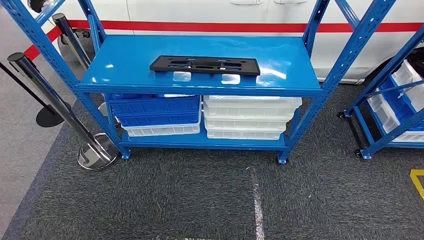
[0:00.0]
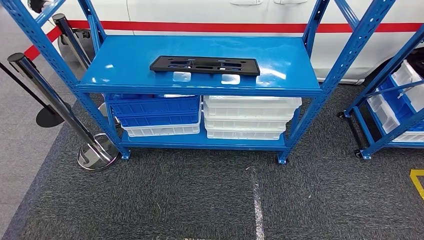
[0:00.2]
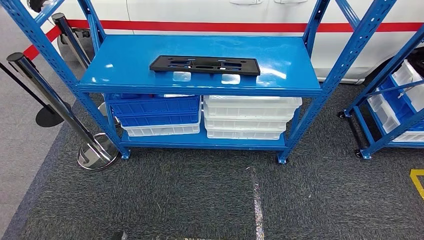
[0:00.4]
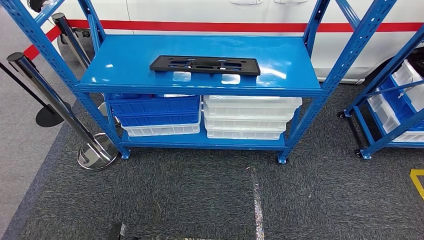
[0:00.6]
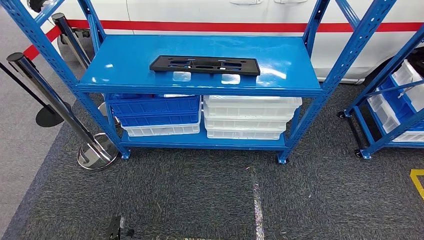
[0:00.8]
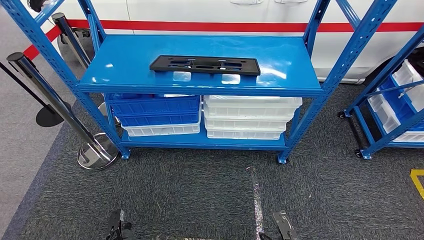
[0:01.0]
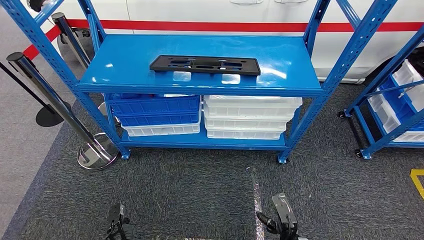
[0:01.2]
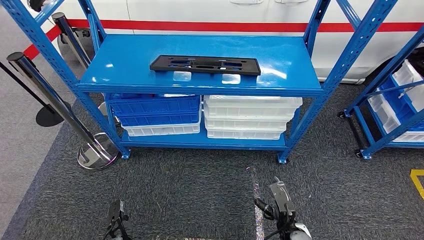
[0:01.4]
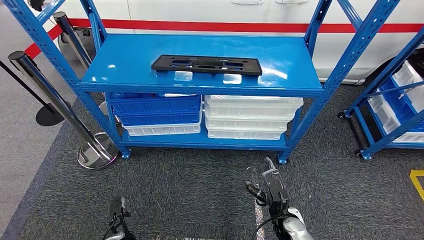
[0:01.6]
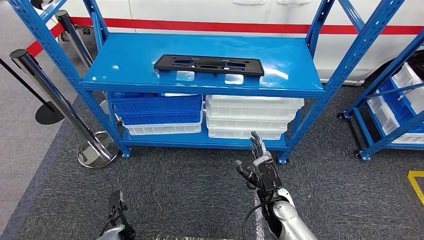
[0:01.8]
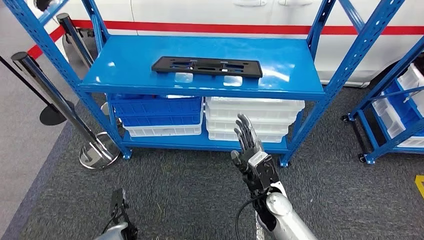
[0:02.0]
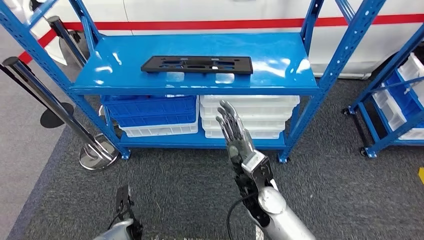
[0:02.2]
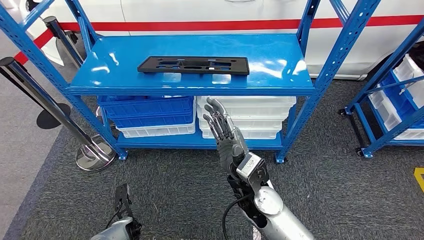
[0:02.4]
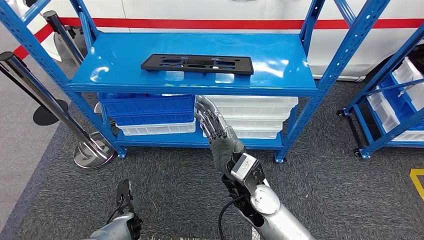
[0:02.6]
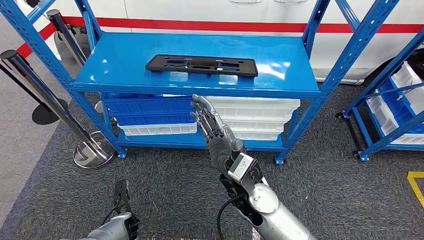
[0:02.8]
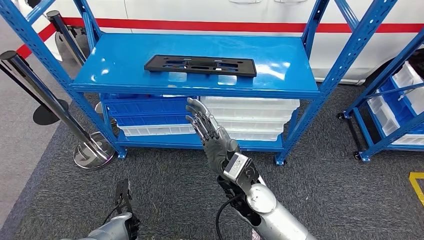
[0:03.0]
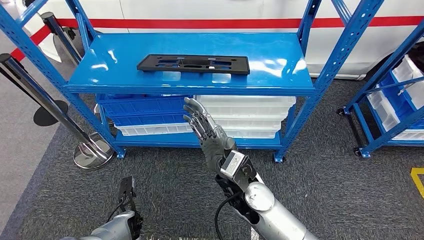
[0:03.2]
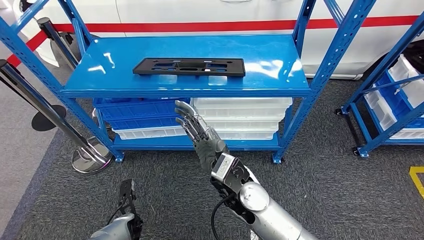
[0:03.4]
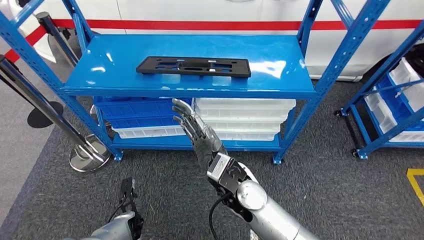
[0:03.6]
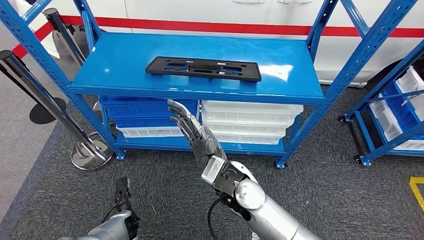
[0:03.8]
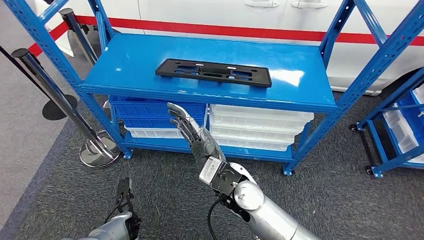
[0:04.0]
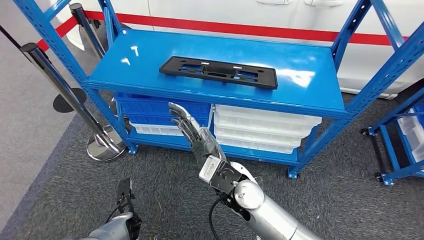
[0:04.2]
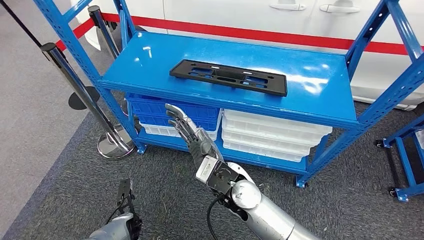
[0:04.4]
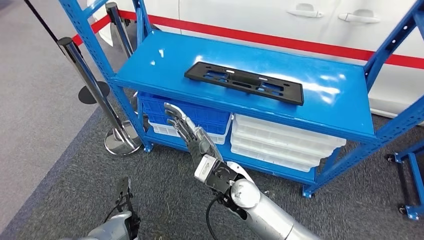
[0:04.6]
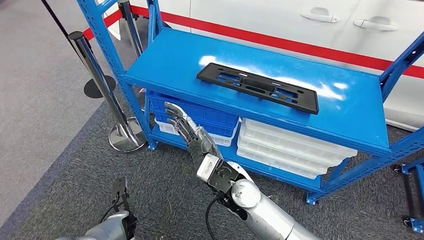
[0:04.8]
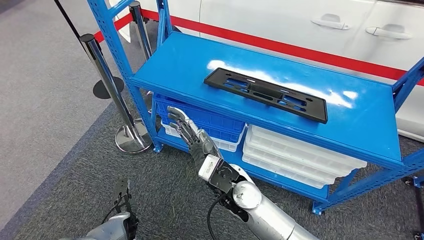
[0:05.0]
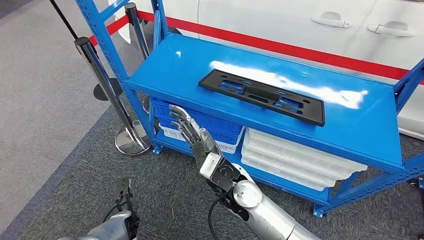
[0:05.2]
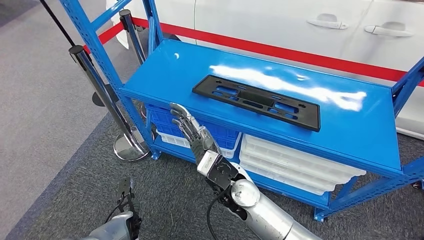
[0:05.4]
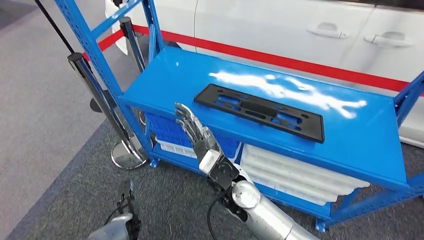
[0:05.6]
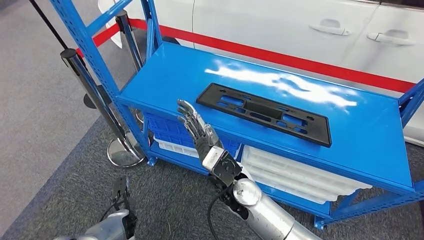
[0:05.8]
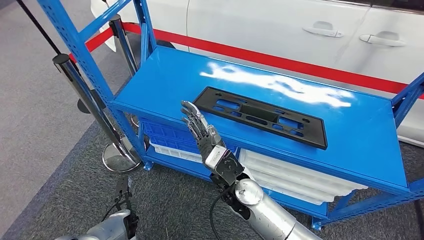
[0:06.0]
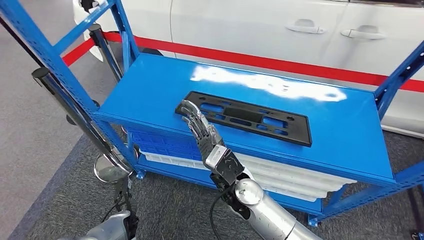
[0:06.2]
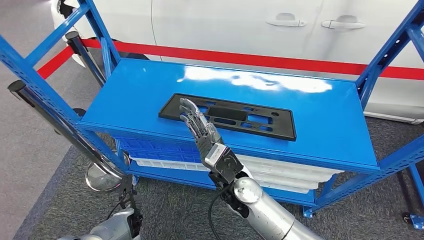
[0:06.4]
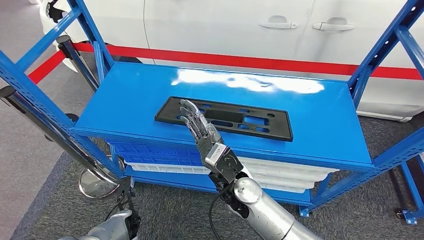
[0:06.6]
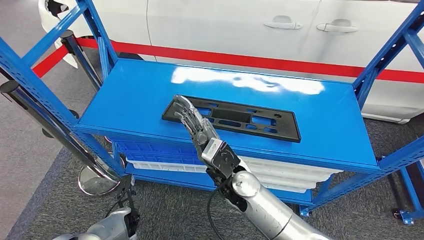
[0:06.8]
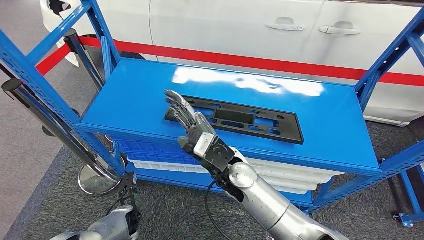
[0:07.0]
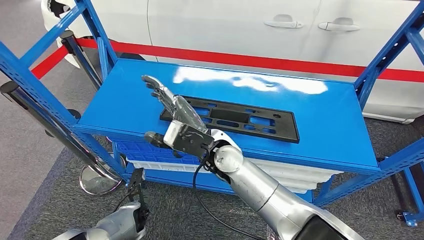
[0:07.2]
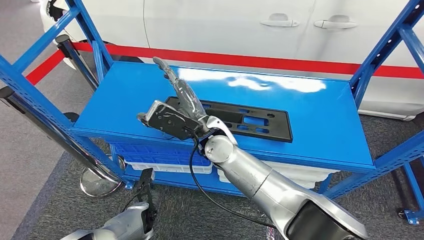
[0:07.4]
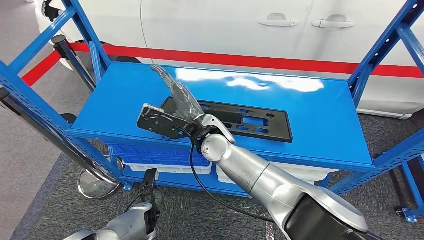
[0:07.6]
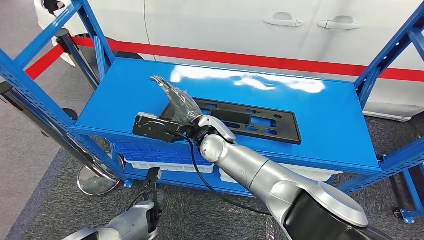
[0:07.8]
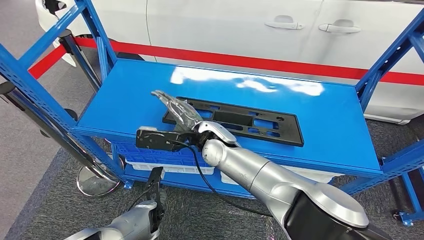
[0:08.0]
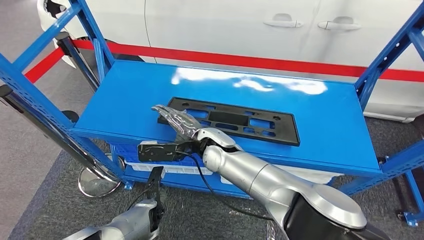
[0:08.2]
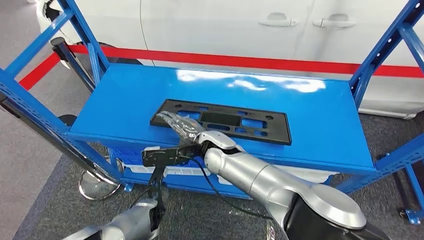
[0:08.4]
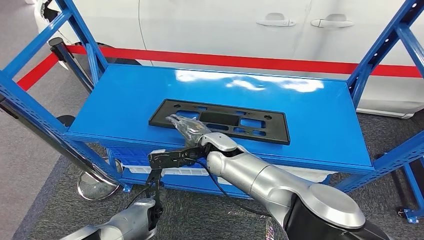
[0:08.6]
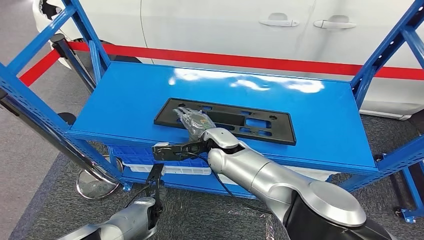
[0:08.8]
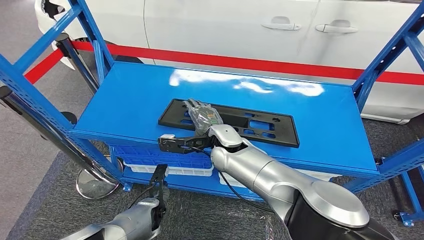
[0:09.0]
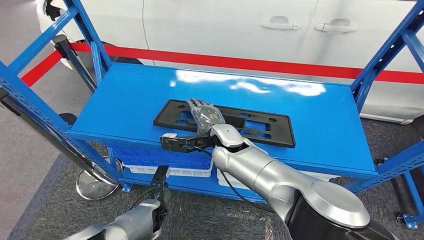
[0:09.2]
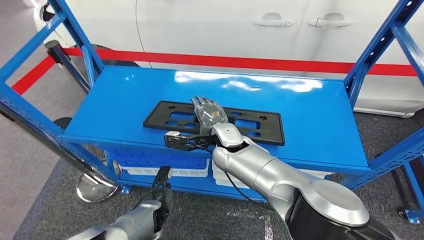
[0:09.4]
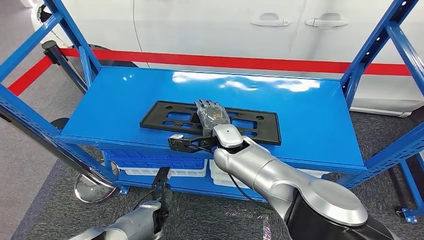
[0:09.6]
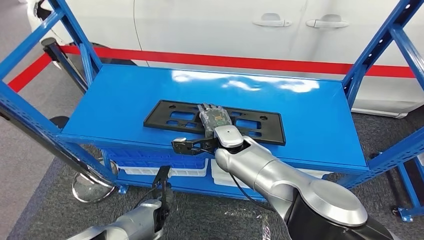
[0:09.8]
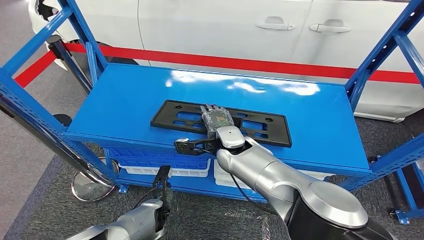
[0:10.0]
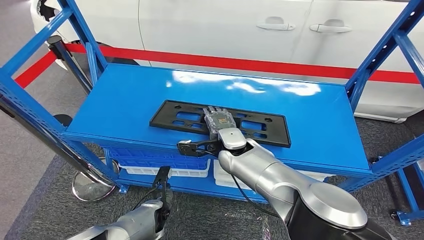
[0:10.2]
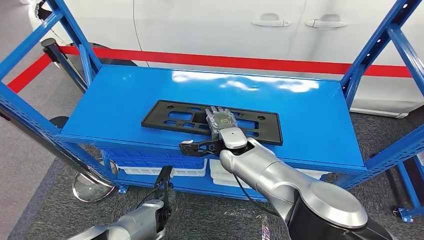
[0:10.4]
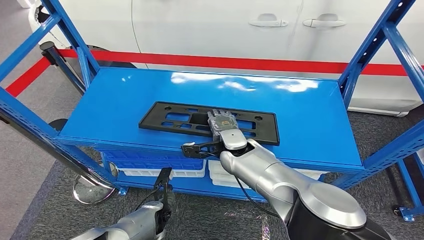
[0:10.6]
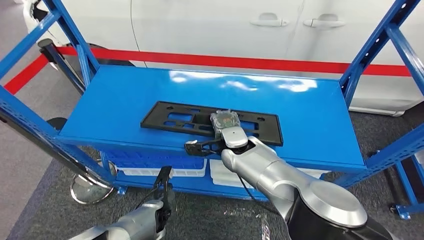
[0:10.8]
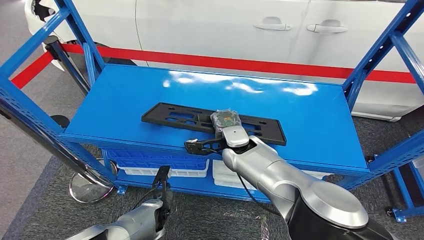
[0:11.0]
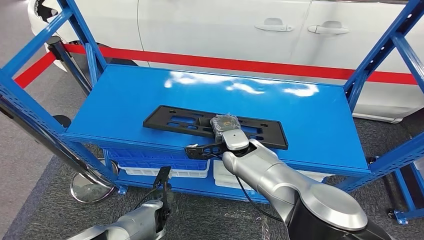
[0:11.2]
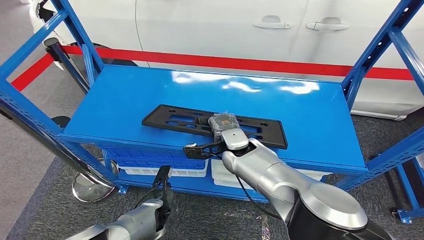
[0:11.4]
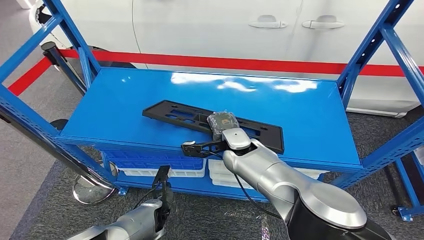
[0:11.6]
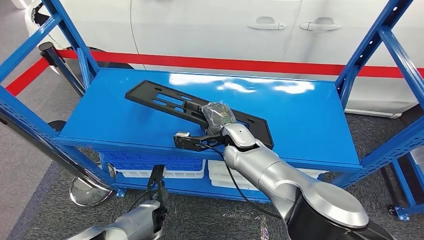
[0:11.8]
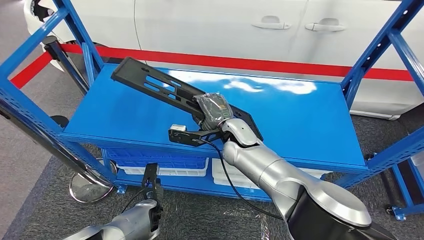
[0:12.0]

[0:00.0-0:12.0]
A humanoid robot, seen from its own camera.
Step, 0:00.0 to 0:11.8: Pick up the large material from the shelf.

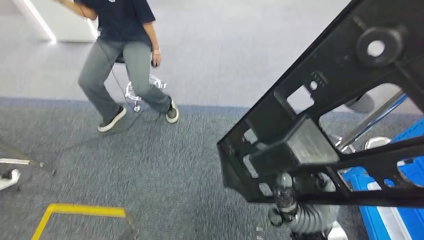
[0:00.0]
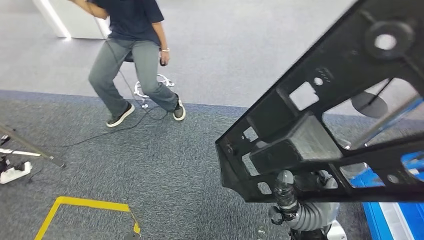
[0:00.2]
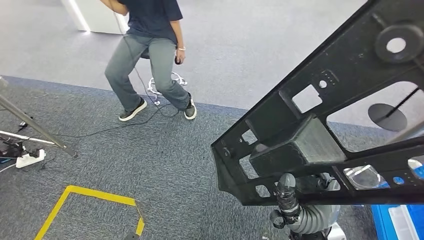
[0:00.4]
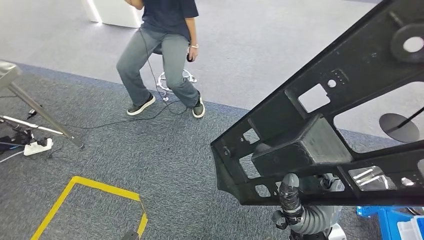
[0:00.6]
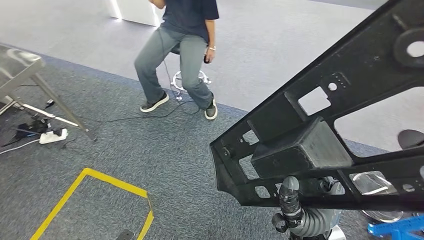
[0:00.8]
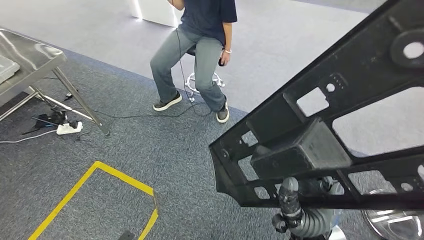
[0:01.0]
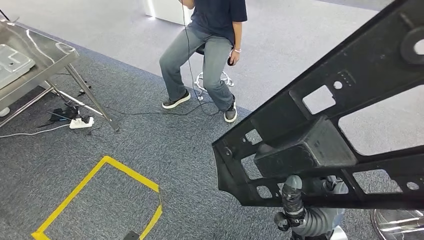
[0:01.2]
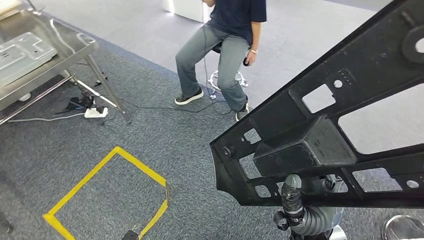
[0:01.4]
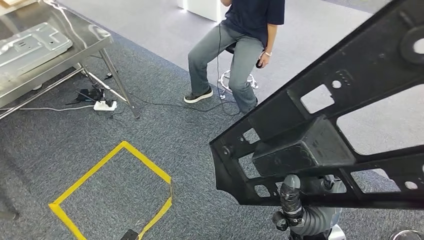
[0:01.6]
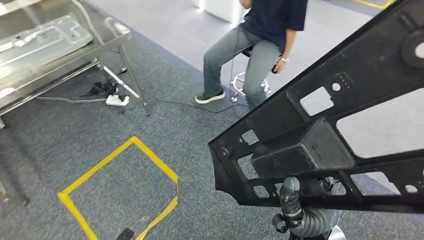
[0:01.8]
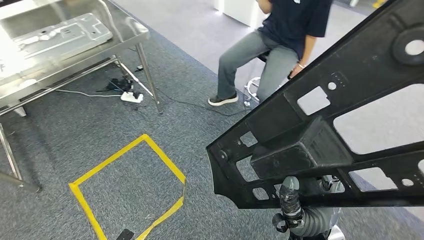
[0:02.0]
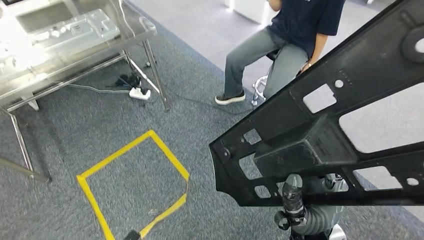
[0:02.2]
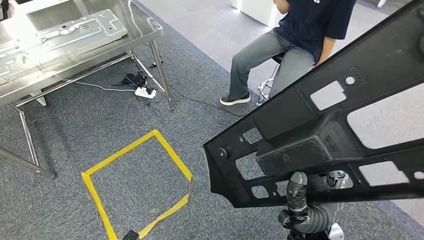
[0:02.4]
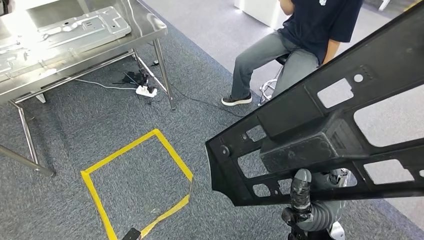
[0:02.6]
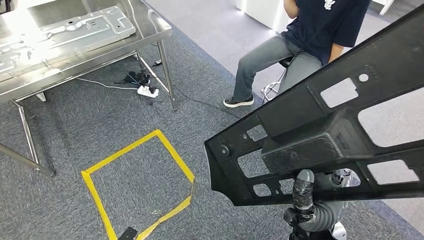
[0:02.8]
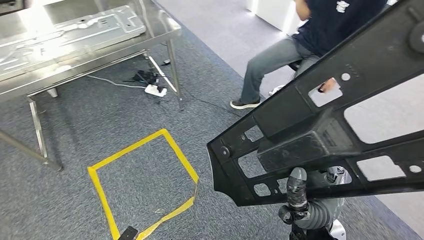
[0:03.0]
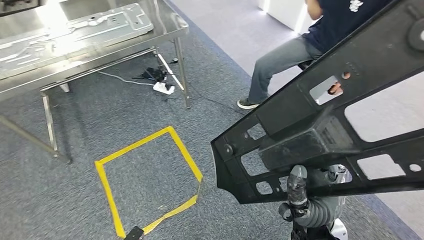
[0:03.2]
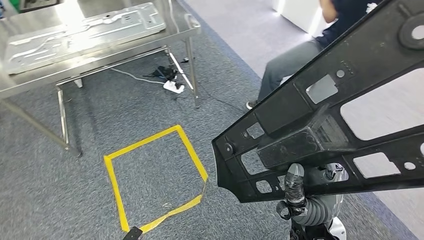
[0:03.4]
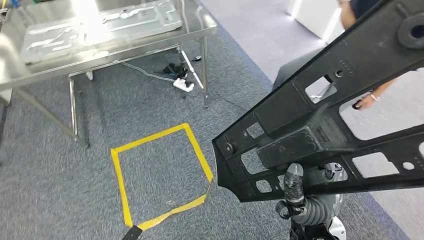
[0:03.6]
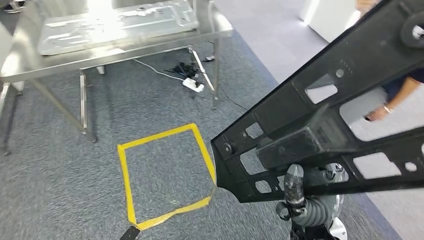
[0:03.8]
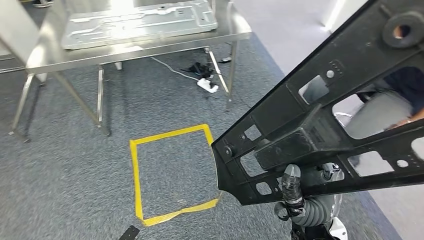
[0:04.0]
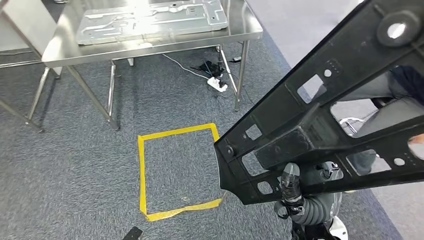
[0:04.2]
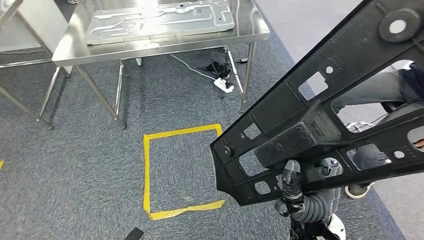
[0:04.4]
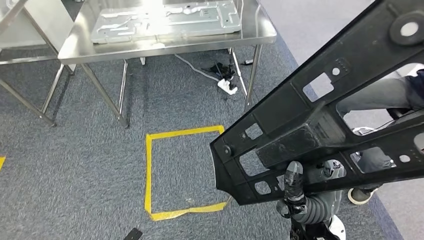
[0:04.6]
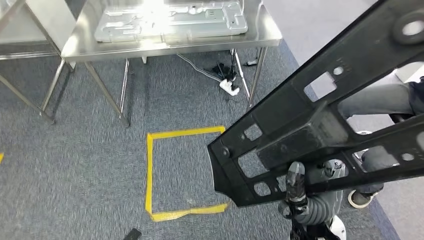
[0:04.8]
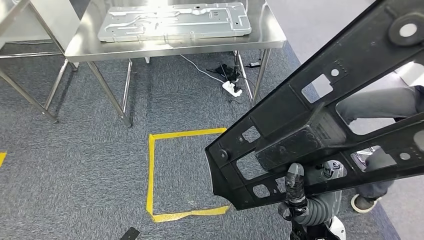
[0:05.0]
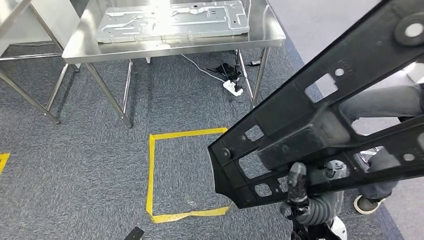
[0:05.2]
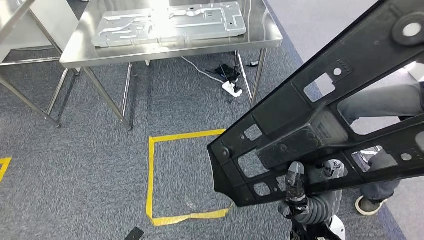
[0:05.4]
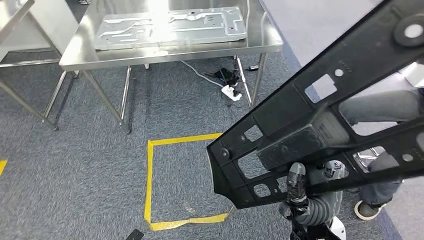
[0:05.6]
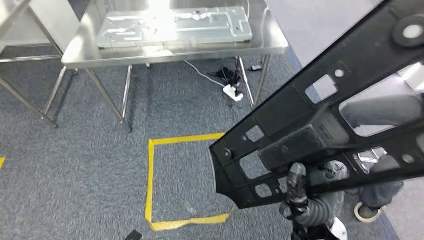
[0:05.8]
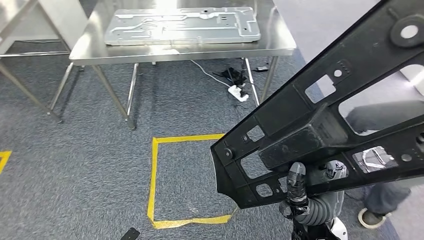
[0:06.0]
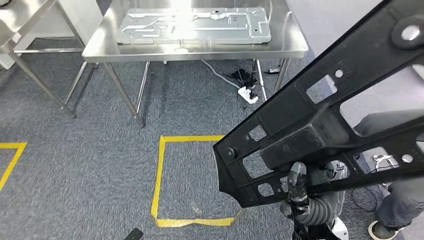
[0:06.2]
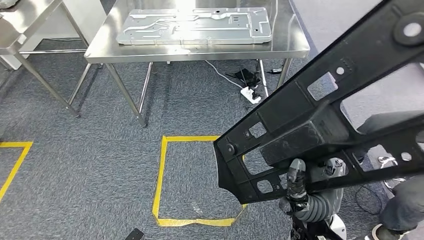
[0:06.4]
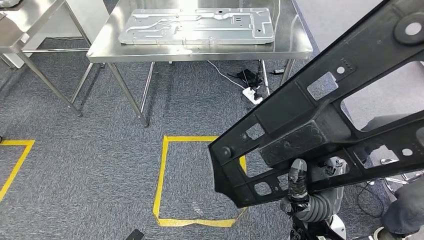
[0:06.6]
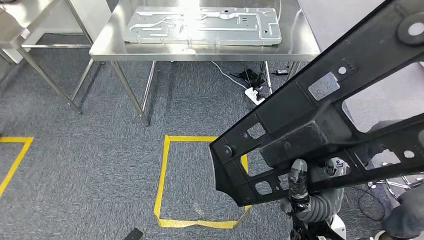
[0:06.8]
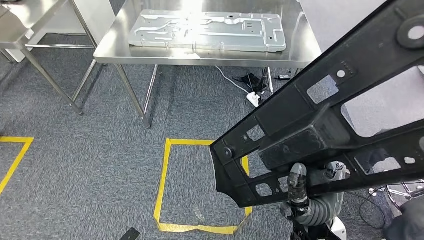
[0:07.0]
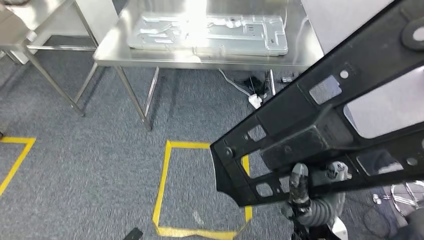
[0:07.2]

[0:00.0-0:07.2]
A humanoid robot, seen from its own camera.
Step, 0:00.0 to 0:06.8: Move the large material to the workbench.
